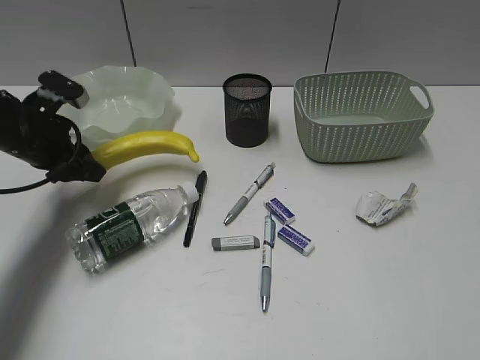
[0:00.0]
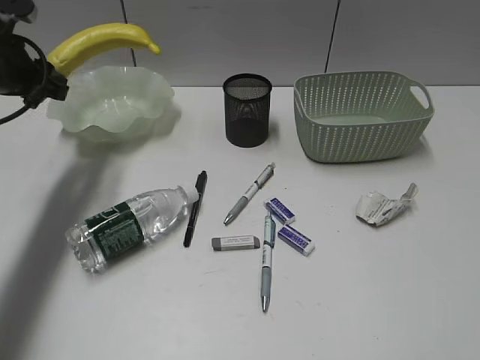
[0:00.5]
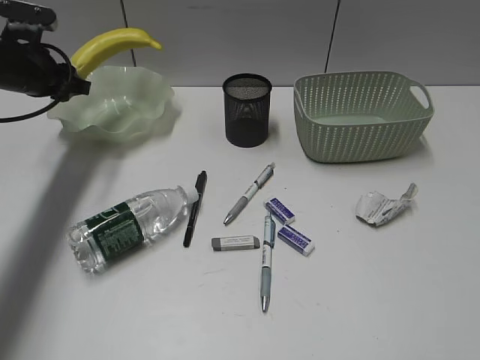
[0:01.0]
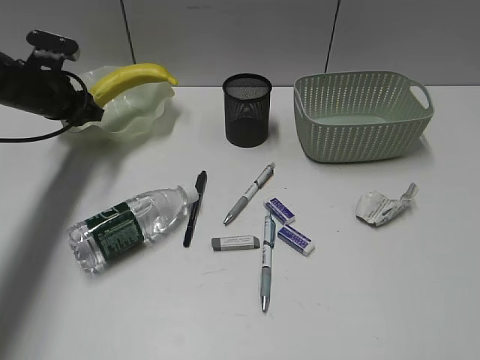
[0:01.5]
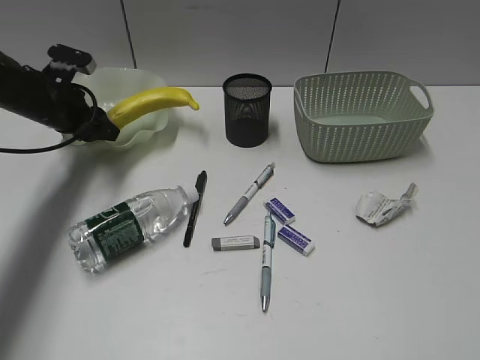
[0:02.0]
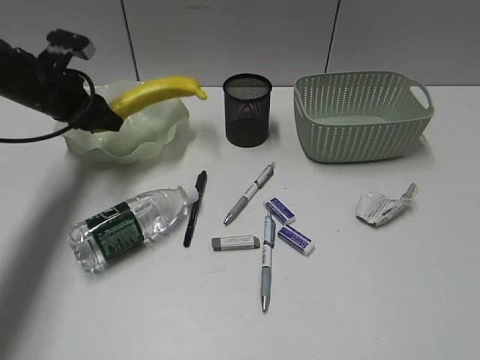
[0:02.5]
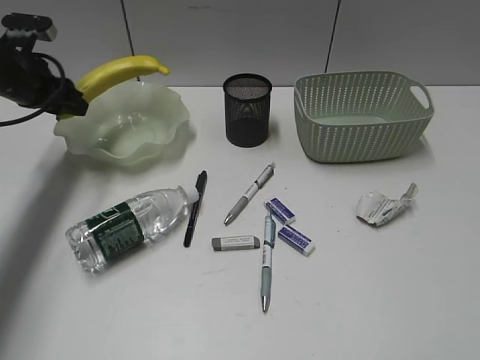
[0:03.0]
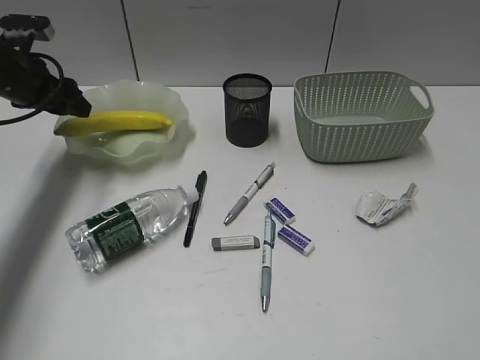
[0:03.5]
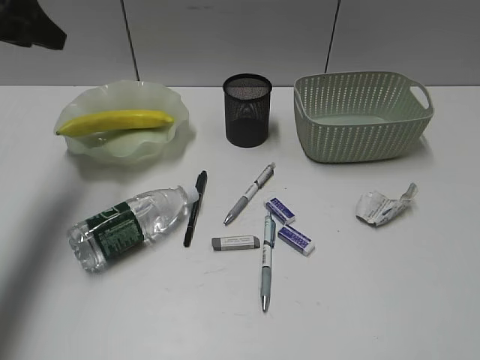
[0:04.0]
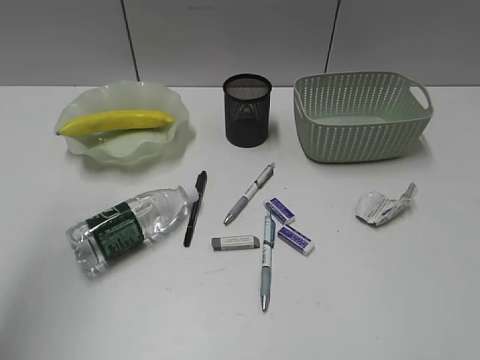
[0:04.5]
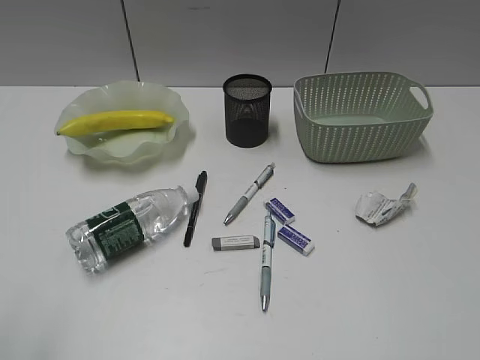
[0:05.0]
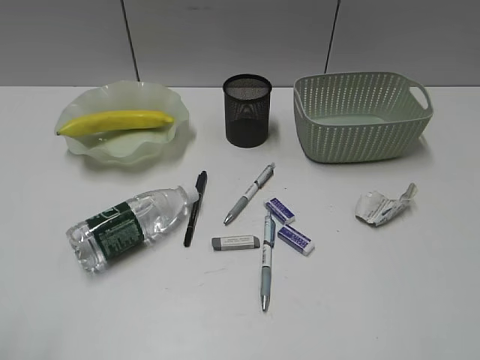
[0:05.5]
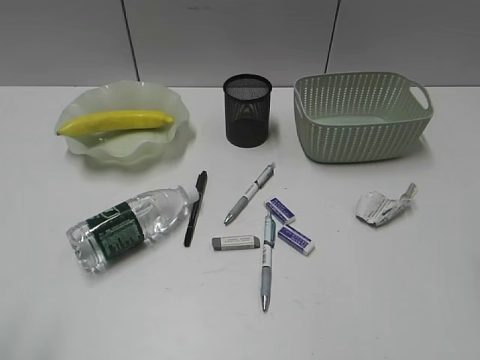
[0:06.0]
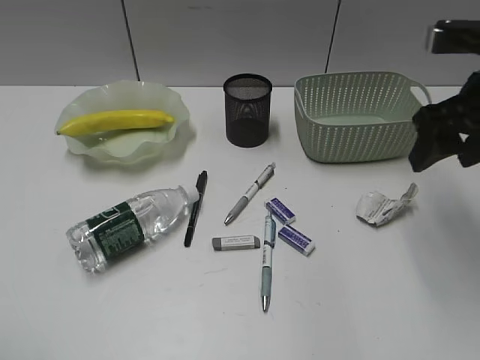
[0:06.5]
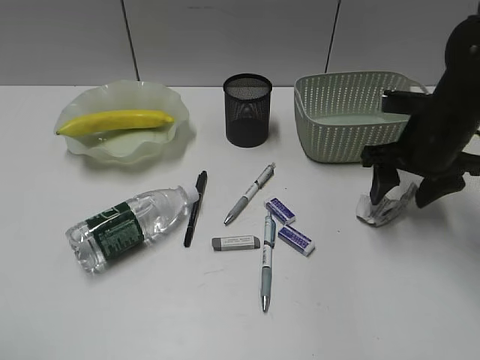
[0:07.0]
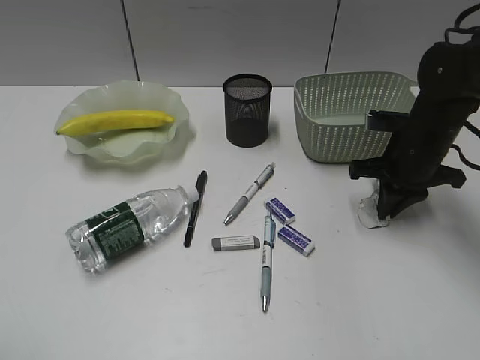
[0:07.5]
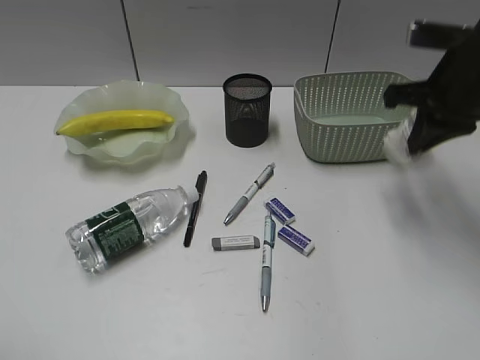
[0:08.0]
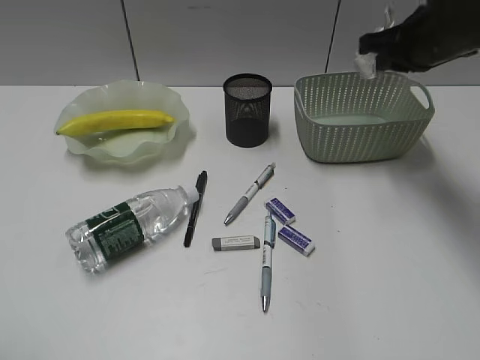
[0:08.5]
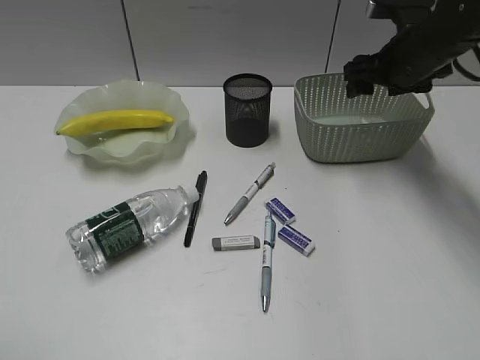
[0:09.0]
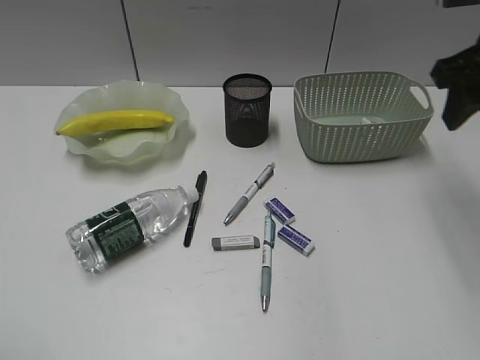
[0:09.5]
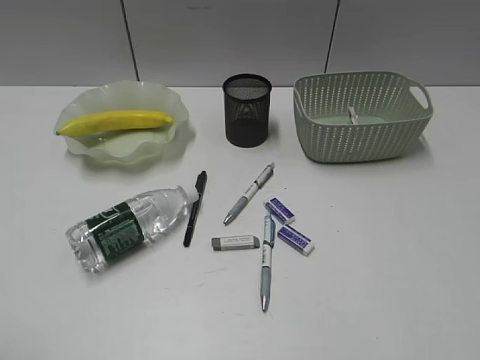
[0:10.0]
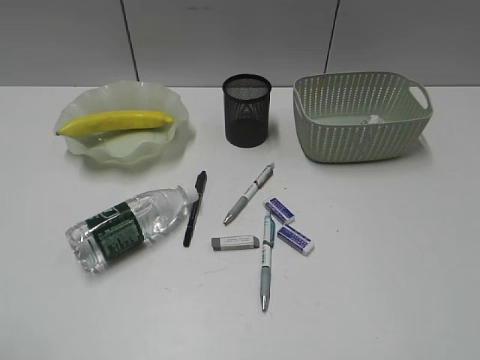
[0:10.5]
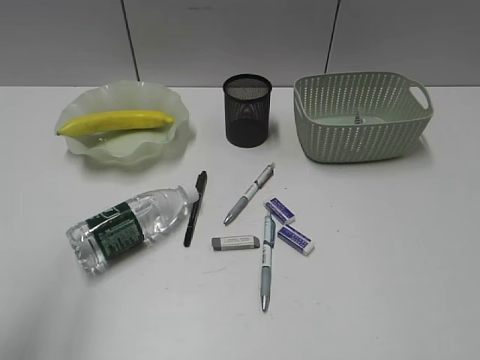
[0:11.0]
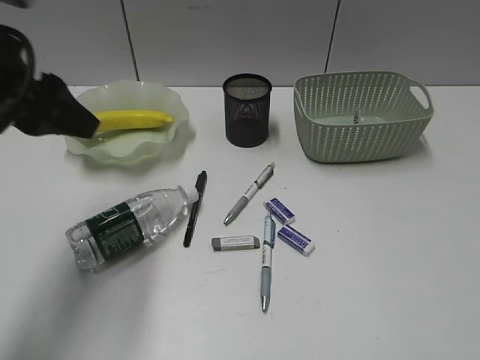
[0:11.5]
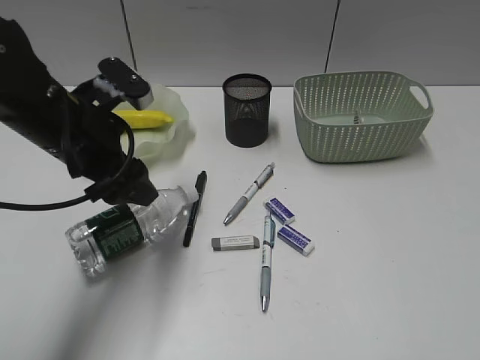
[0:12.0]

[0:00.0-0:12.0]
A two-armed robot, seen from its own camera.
Step, 0:00.0 to 0:03.0: Place the banana in the plate with left gripper.
Step, 0:03.5 to 0:07.5: Grasp the waste paper with right gripper.
Step, 0:08.0 to 0:09.0: Place the waste paper in the basket with right gripper.
0:00.0 to 0:02.0: The left gripper moves forward, about 10 cm.
0:02.0 to 0:04.0: The left gripper goes some 15 cm upward, and opens its fingers.
0:04.0 to 0:06.0: The left gripper goes some 35 cm backward.
0:06.0 to 0:08.0: The right gripper heads forward and downward, covering about 25 cm, and closes.
0:08.0 to 0:10.0: The right gripper shifts some 20 cm backward and upward, and opens.
0:10.0 to 0:12.0: The left gripper travels forward and to the right by approximately 30 cm, and opens its fingers, while the right gripper goes about 15 cm backward.

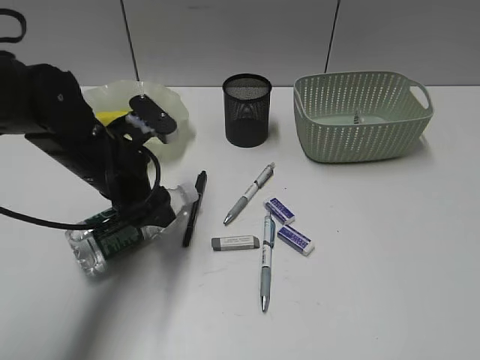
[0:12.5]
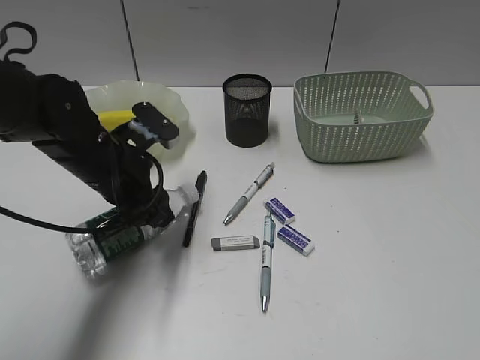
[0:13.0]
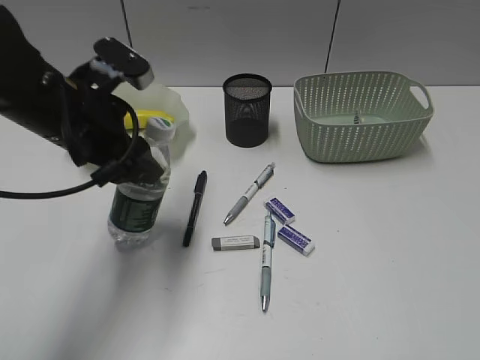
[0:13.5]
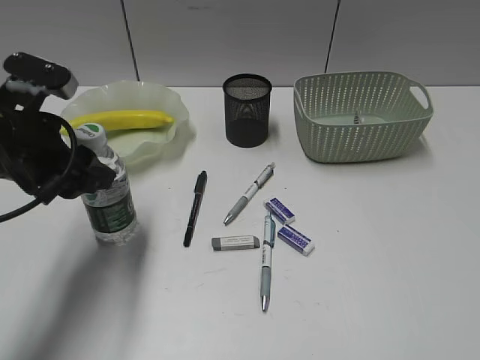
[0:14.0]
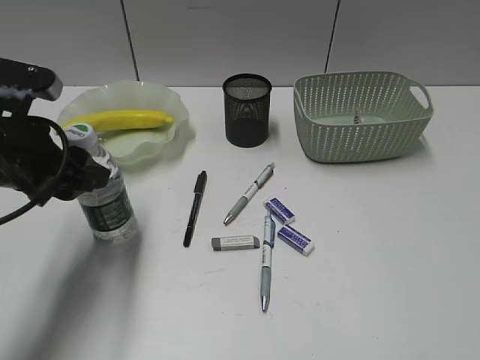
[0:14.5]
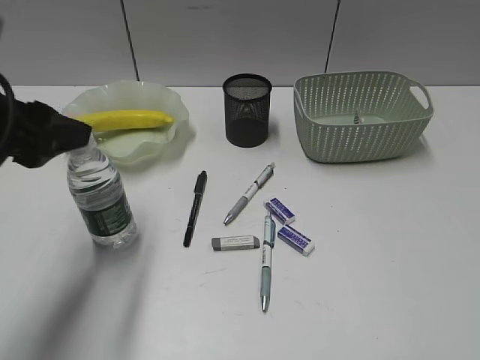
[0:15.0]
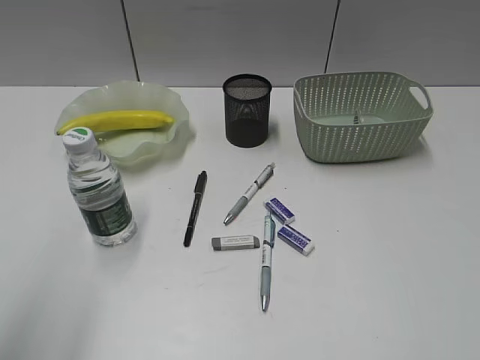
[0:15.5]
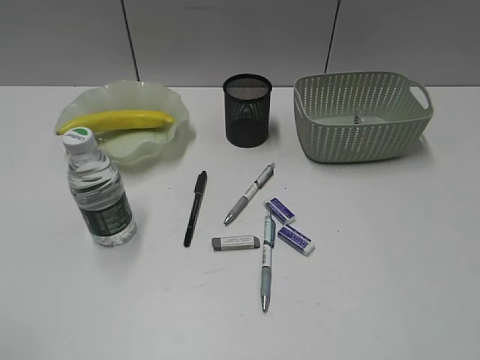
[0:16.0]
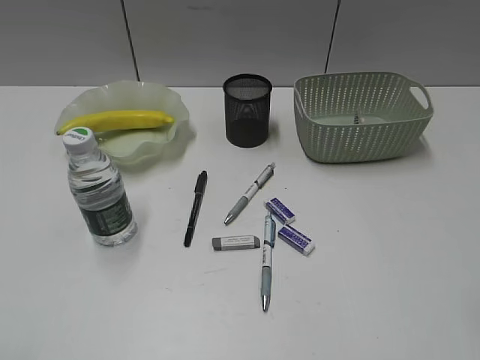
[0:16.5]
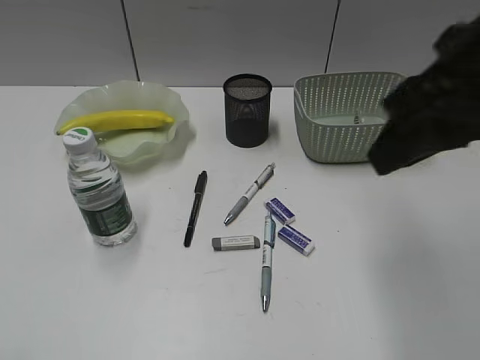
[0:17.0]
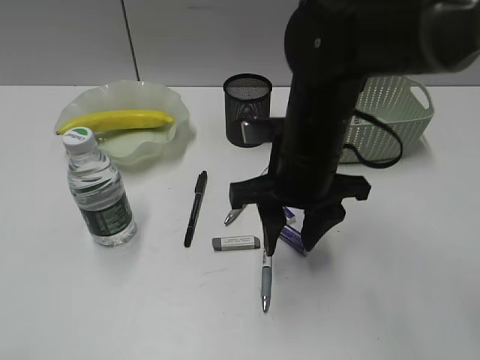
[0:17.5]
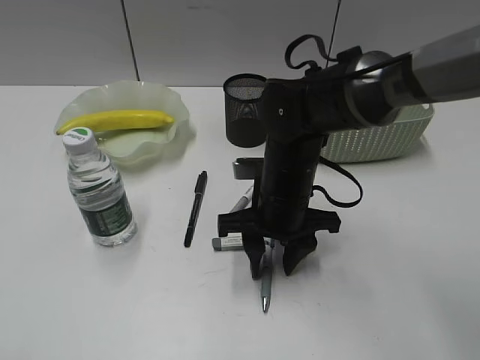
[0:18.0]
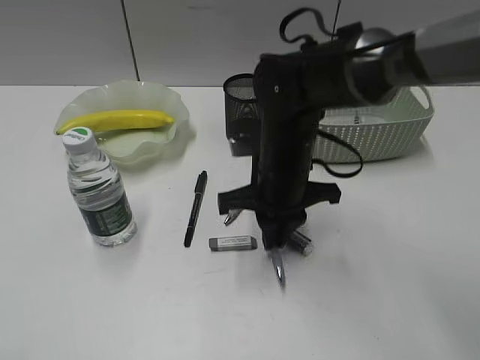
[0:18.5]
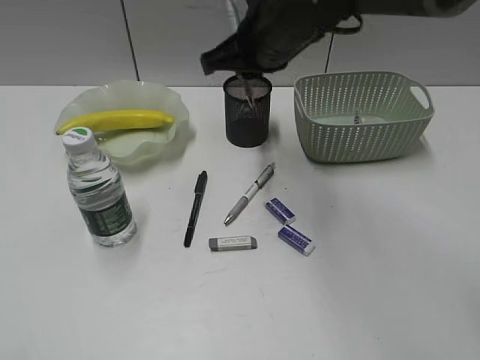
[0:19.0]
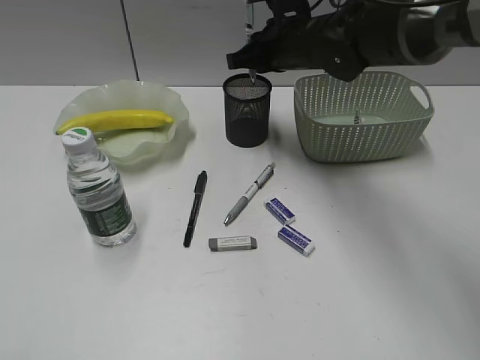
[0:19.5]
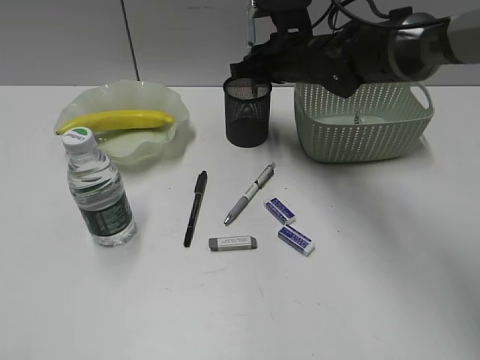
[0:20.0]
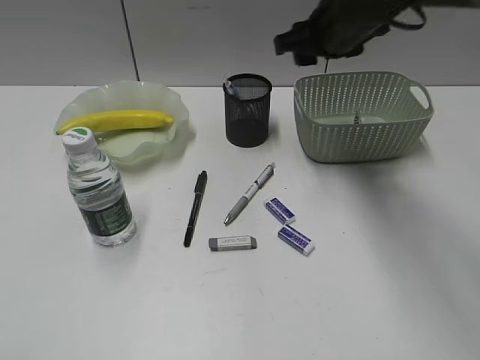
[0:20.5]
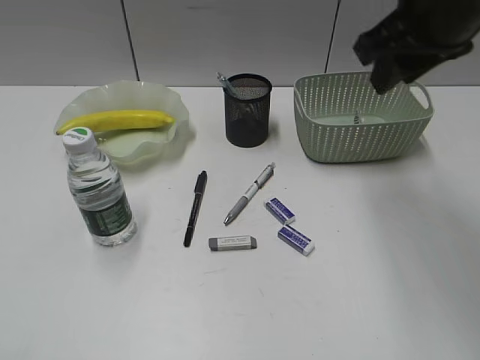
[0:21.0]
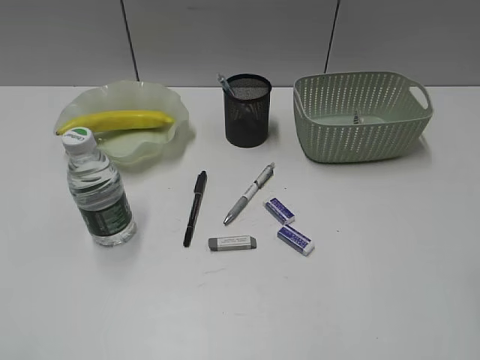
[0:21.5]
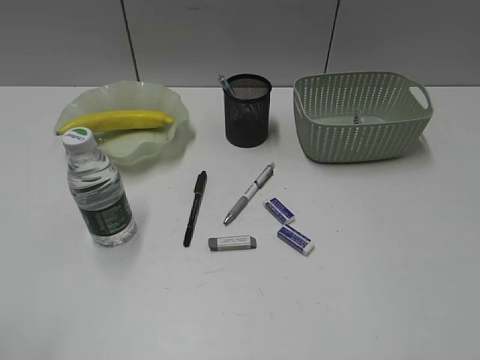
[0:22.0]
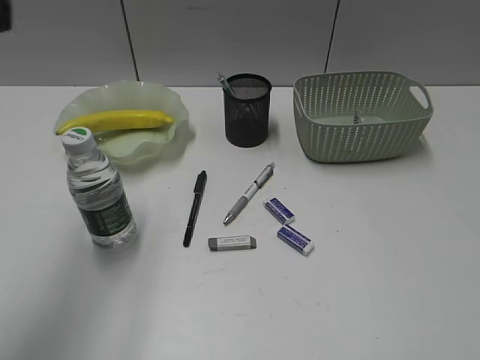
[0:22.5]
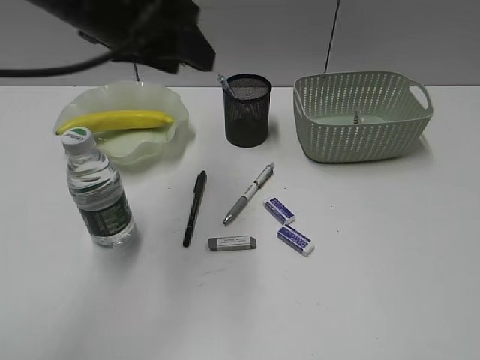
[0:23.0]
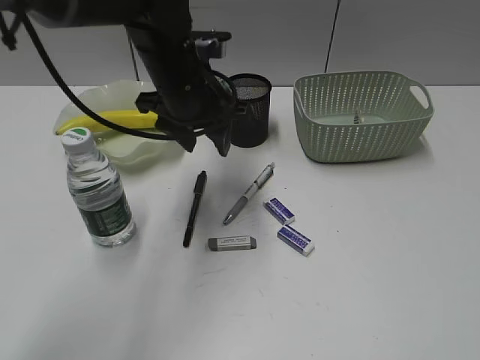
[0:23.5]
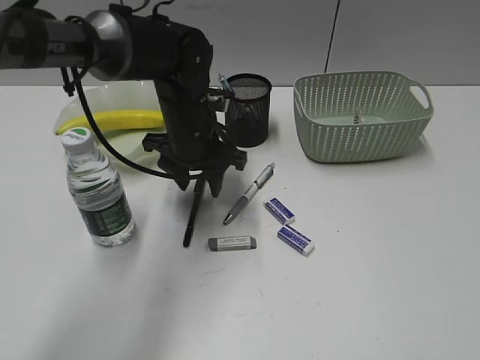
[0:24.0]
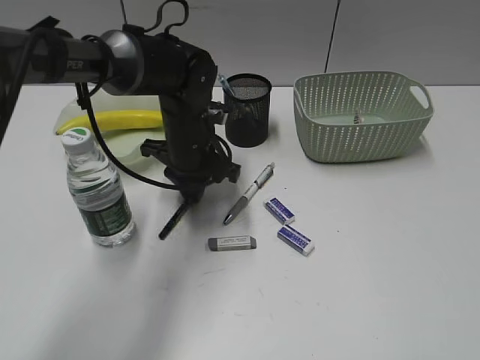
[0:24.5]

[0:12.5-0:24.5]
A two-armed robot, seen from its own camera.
Step, 0:13.0 to 0:15.0: Stand the bottle with left gripper.
Step, 0:15.5 to 0:18.0: Grasp the blue pen with right gripper.
Step, 0:18.5 to 0:20.0: Place the blue pen in pen holder with right gripper.
0:12.5 to 0:14.5: The left gripper shifts roughly 5 cm to the left.
0:14.5 to 0:16.5: The left gripper is displaced backward by roughly 25 cm.
0:16.5 to 0:18.5: The right gripper goes roughly 40 cm forward, to the left and downward, and opens and closes again.
0:18.5 to 0:20.5: The right gripper goes roughly 20 cm forward, upward and to the right, and opens its fingers.
0:20.5 to 0:22.5: The right gripper travels backward and to the right by approximately 50 cm. Meanwhile the left gripper is displaced forward and upward by roughly 20 cm.
0:22.5 to 0:24.5: The left gripper moves downward, forward and to the right, some 40 cm, and closes up.

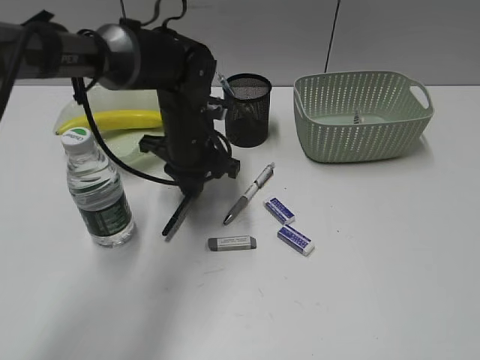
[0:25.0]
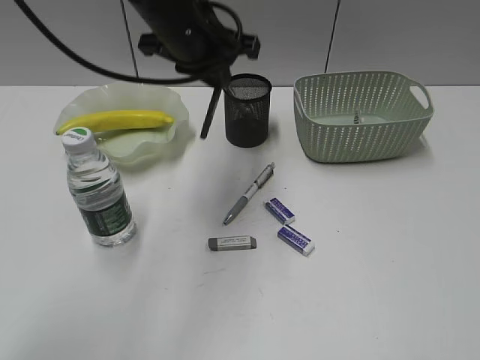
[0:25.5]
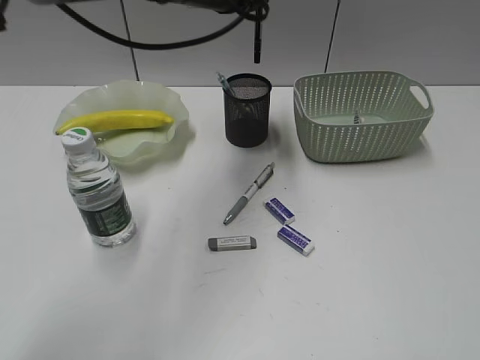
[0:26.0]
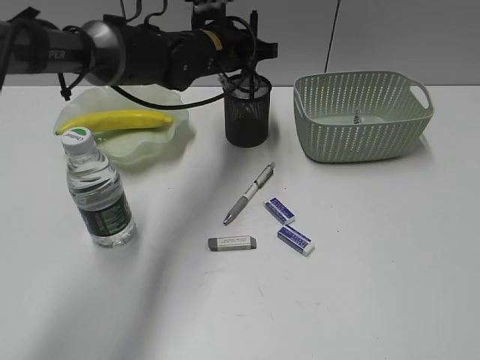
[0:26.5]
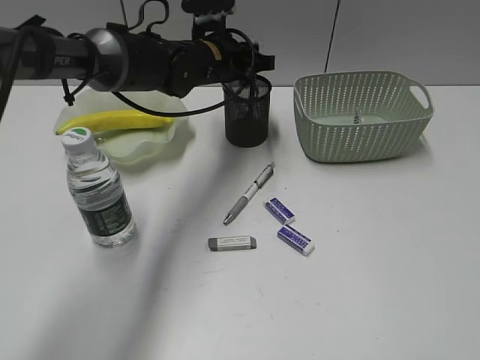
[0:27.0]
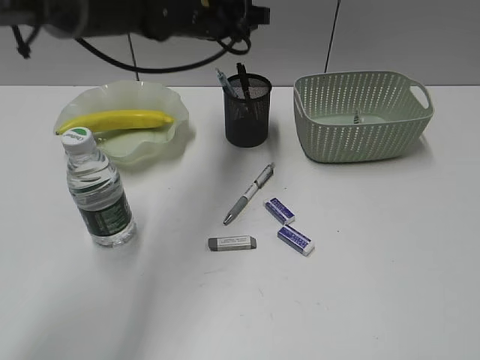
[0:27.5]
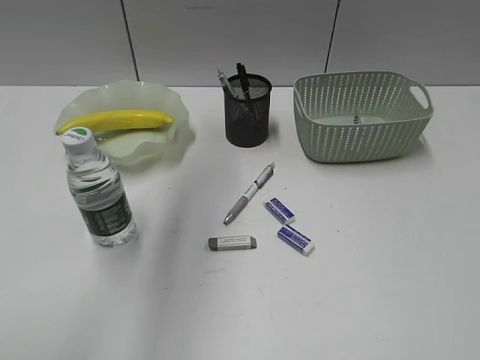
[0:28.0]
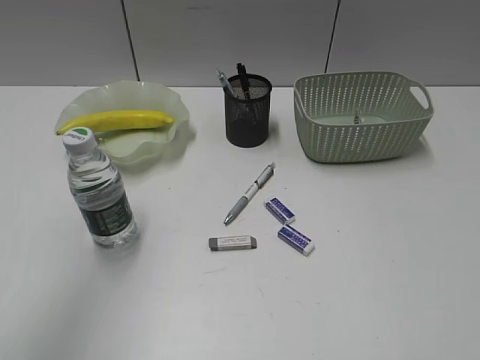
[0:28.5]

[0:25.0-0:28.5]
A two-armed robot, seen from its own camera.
Step, 0:25.0 to 0:27.0: Place the black pen in pen holder with left gripper.
0:25.0 to 0:27.0: The left gripper shifts about 10 cm forward, and goes upward and returns, some 20 cm each way.
0:27.0 to 0:28.5: The left gripper goes some 50 cm upward, backward and to the left, and opens its fingers.
